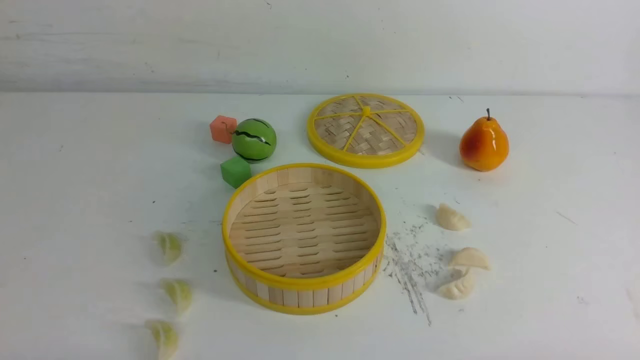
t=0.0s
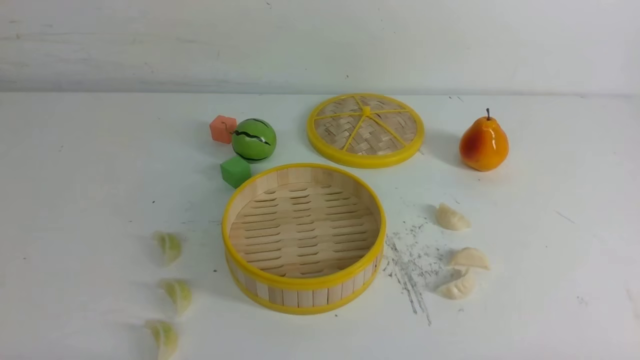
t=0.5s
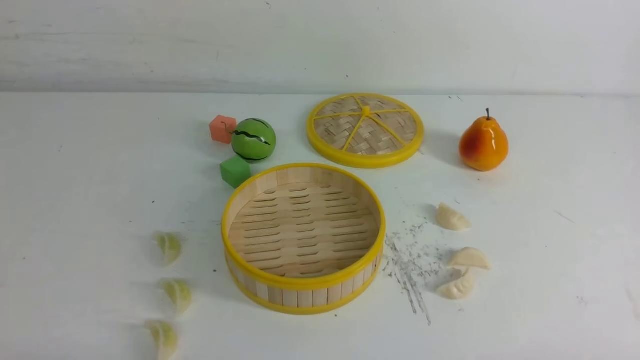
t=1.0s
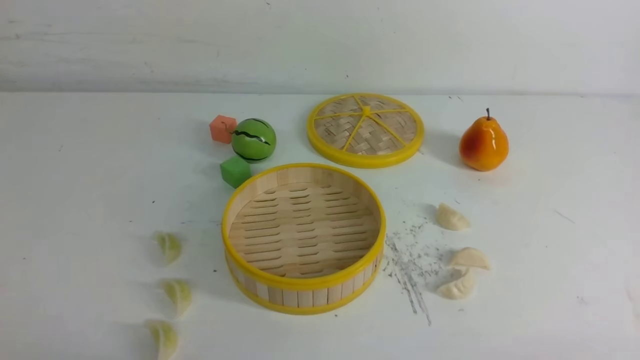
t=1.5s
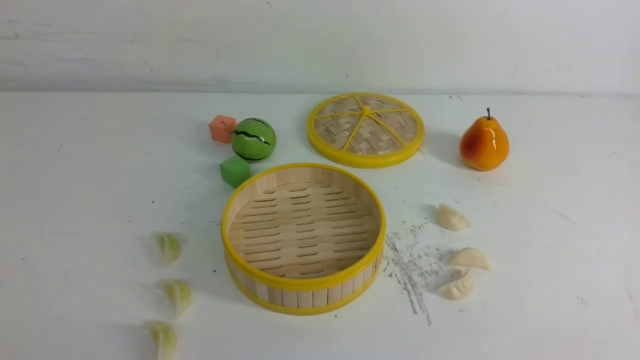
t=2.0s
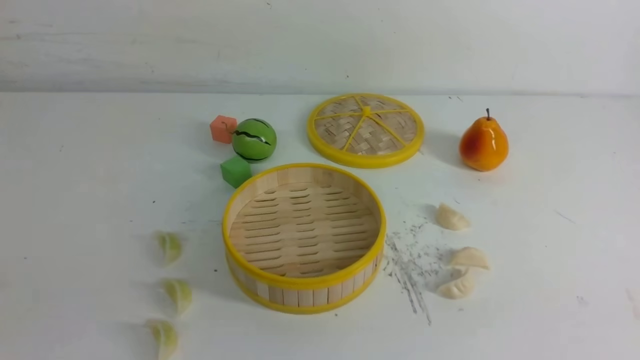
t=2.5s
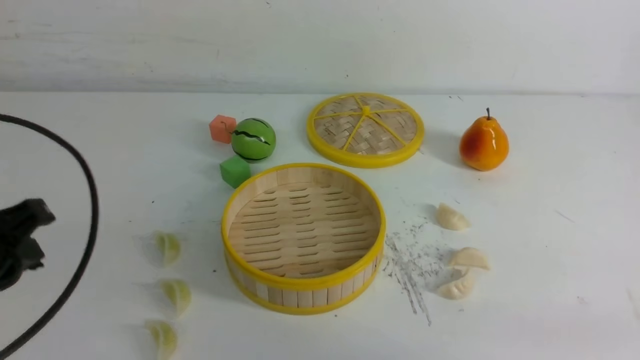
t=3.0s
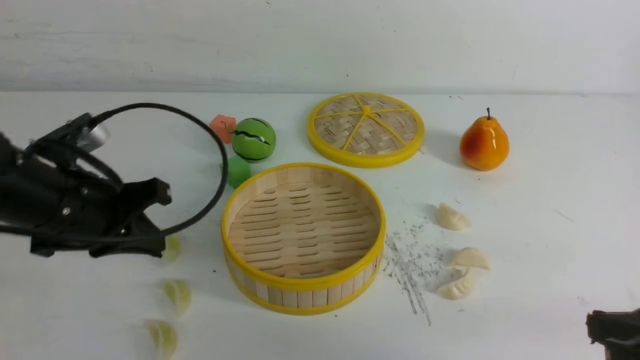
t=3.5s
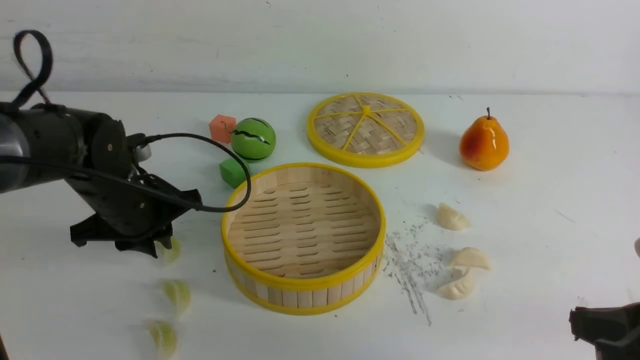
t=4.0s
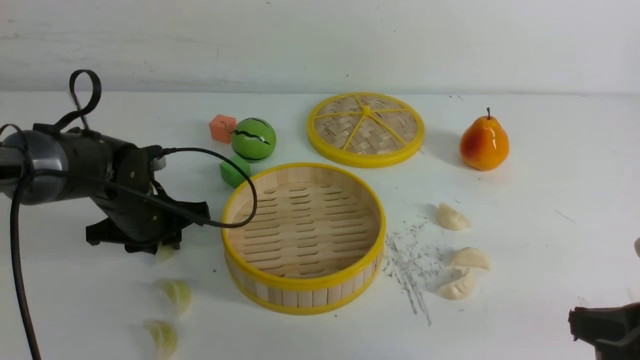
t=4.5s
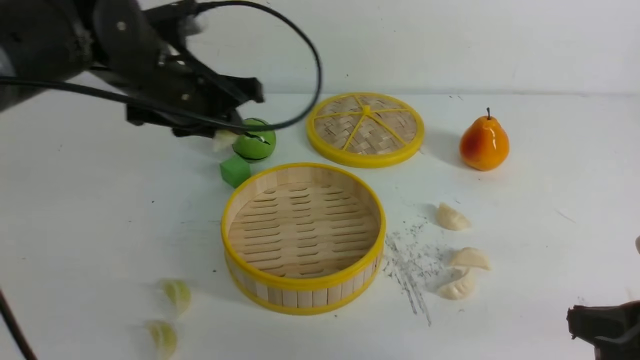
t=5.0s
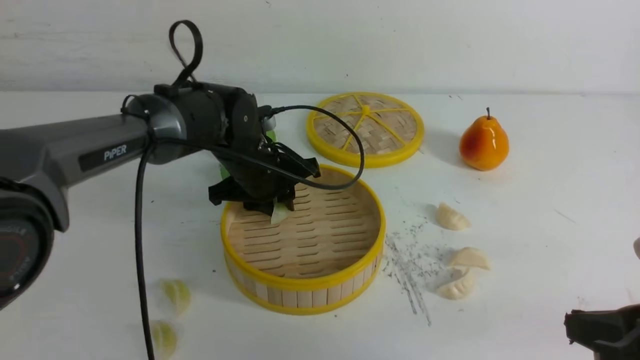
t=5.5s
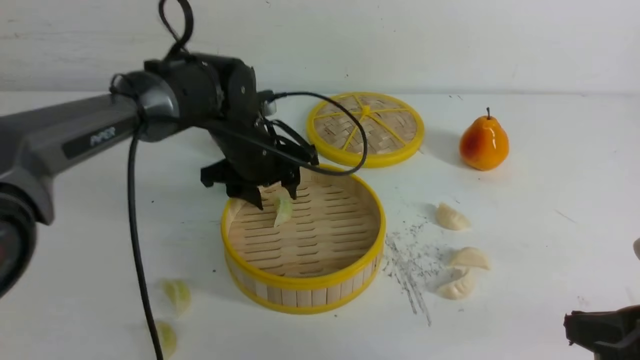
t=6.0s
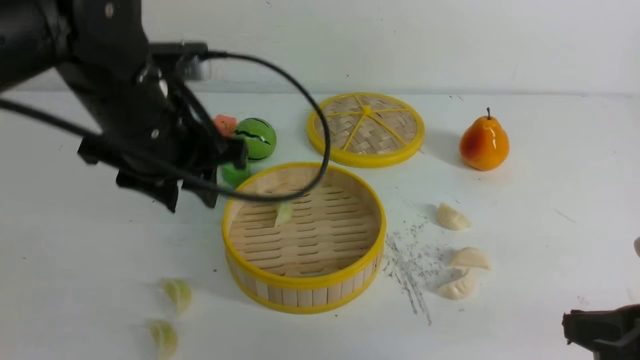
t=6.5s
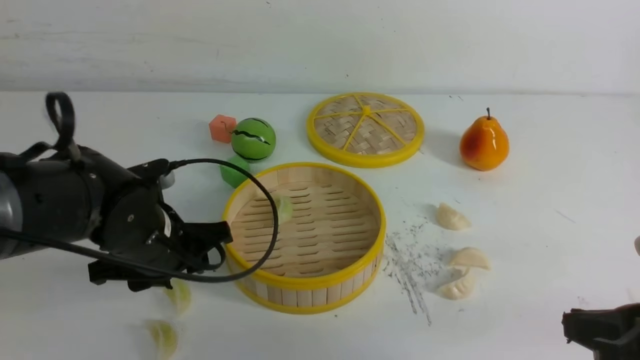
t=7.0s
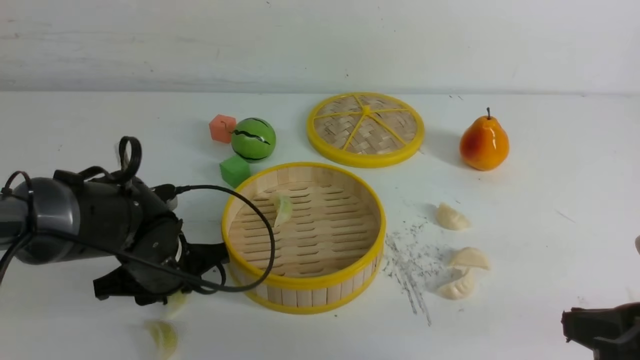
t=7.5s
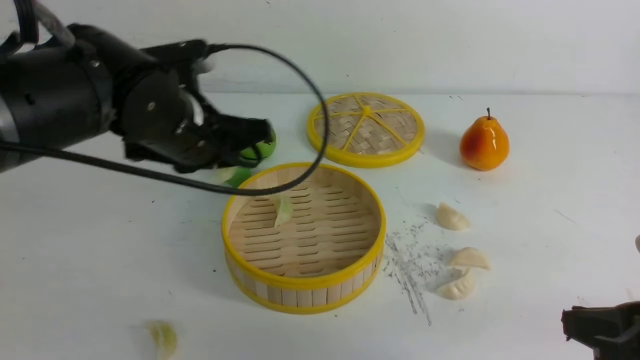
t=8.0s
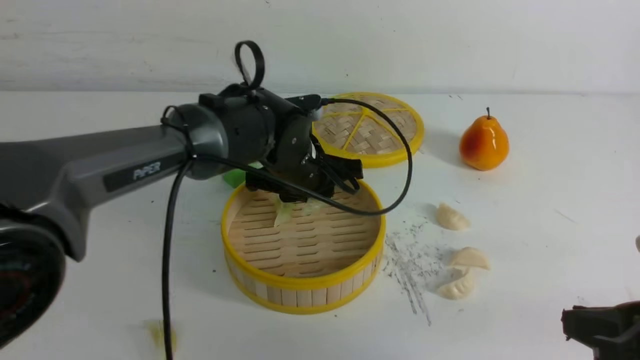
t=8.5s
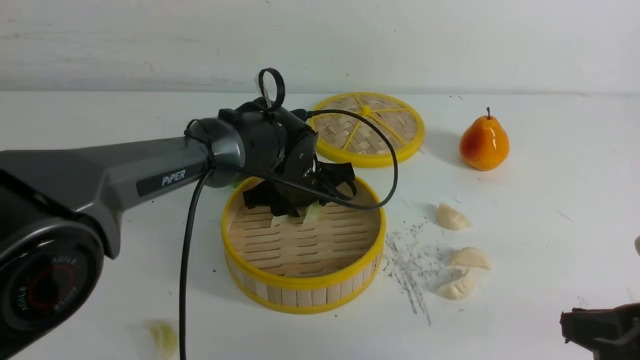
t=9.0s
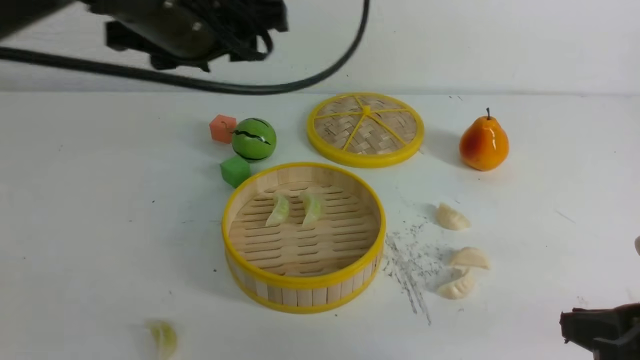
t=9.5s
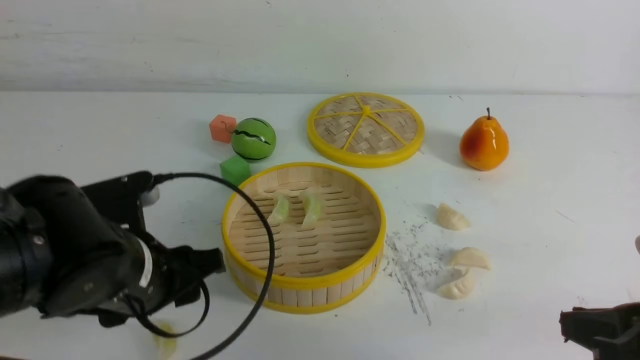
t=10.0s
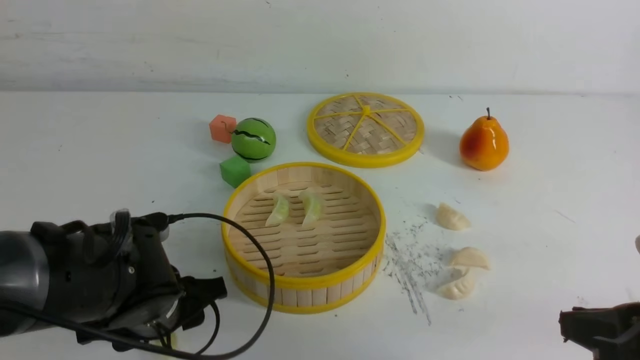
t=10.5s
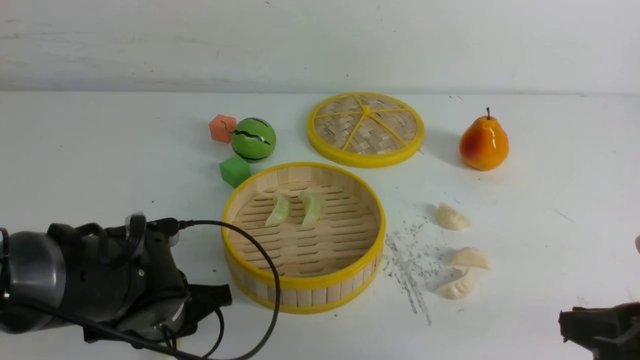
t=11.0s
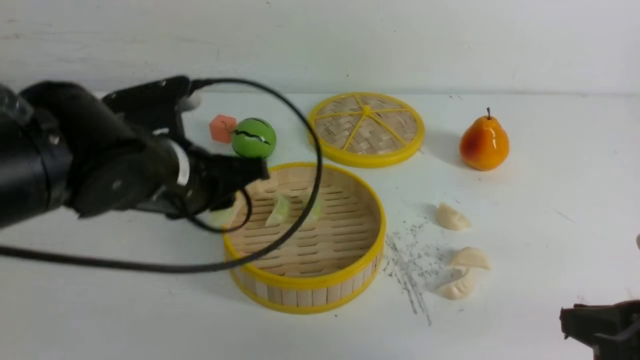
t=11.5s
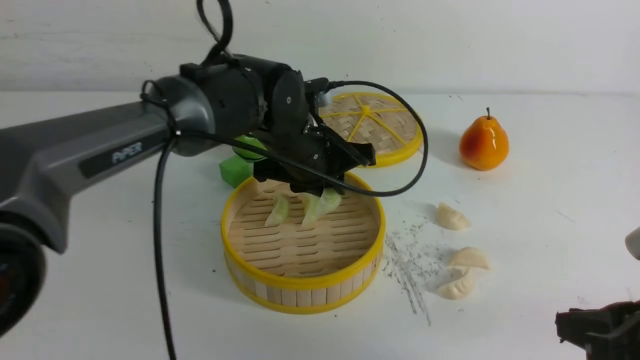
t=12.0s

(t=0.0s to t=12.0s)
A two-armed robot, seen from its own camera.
Task of the whole recording: put the dumplings into the steamer on the white table.
Step, t=0.0s - t=4.5s: use the left arm to grab a dumpling.
Step, t=5.0s - t=5.5s: use the left arm to put the dumpling into the steamer.
Step, t=6.0s - t=7.5s: use the left arm to grab a dumpling.
Step, t=8.0s - t=9.0s: use the left arm to put the dumpling into the steamer.
Step, t=9.5s - t=11.0s: use the left arm to grab a dumpling.
t=2.0s - t=4.0s: The right gripper heads forward, covering about 10 cm. The left gripper heads forward, covering roughly 30 cm, and opens its fingers.
t=4.0s - t=6.0s: The left gripper moves to the right and upward, about 15 cm, and opens its fingers.
t=6.0s - t=8.0s: The left gripper swings up and down, about 15 cm each way, with 2 reversals, and closes its fingers.
t=8.0s - t=10.0s: The left gripper shifts some 10 cm backward, and opens up.
t=10.0s - t=12.0s: The left gripper travels forward and to the right by about 20 cm, and closes up.

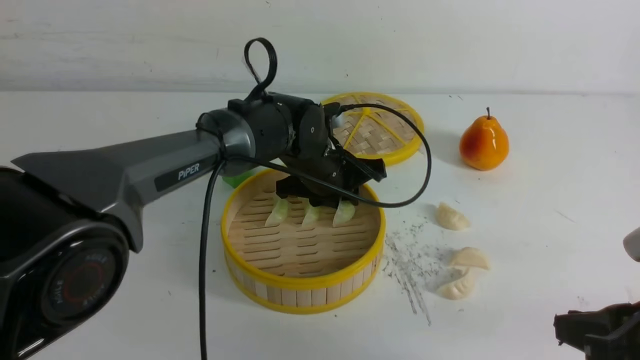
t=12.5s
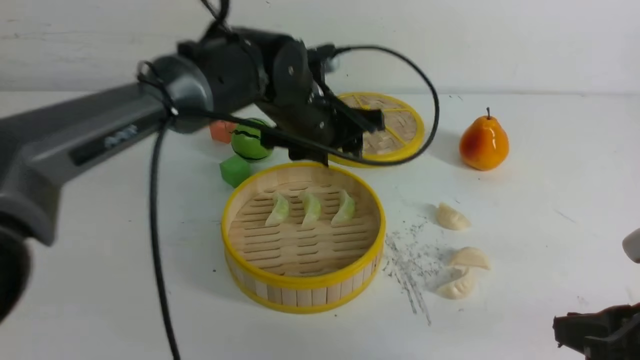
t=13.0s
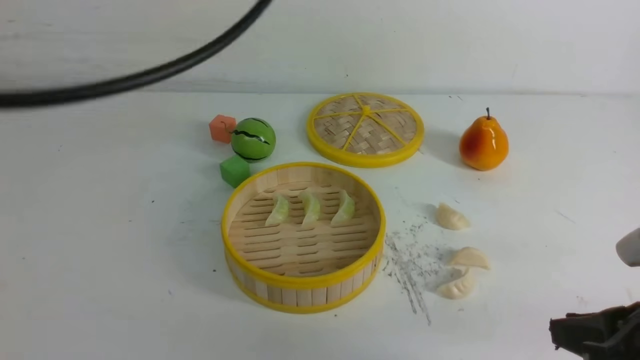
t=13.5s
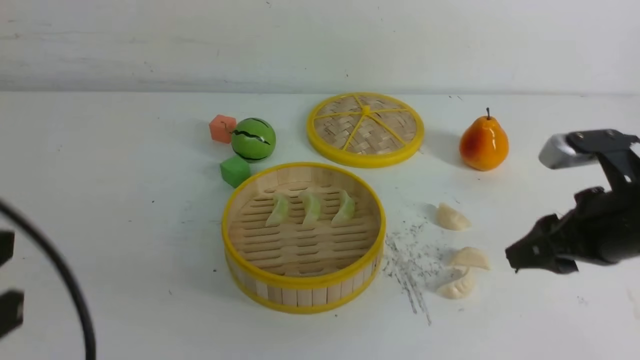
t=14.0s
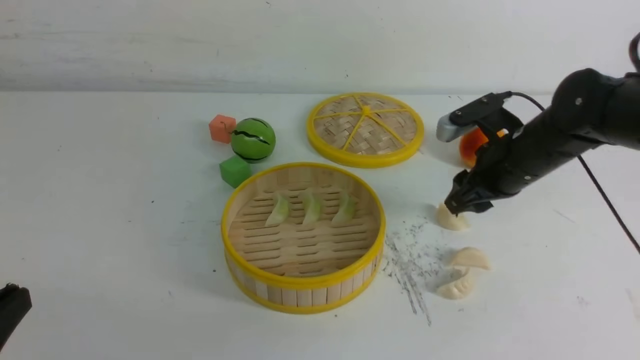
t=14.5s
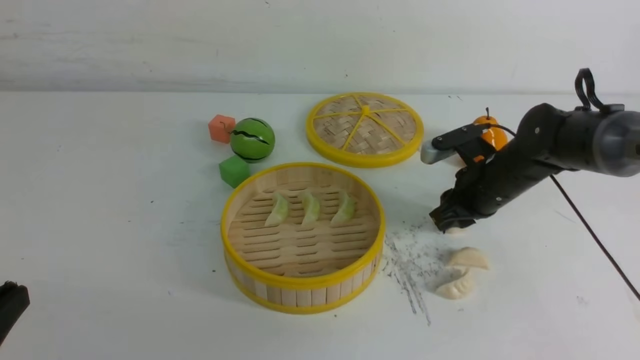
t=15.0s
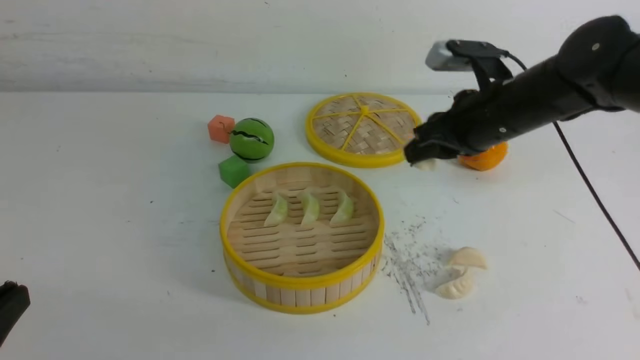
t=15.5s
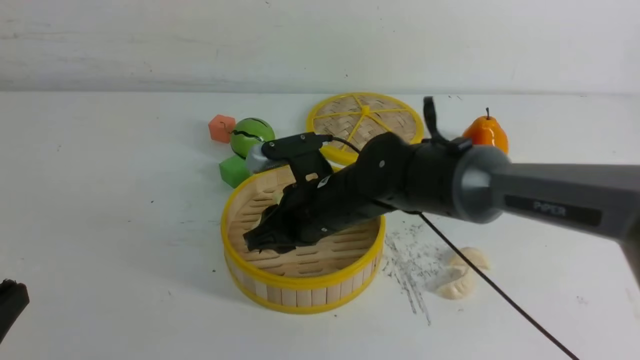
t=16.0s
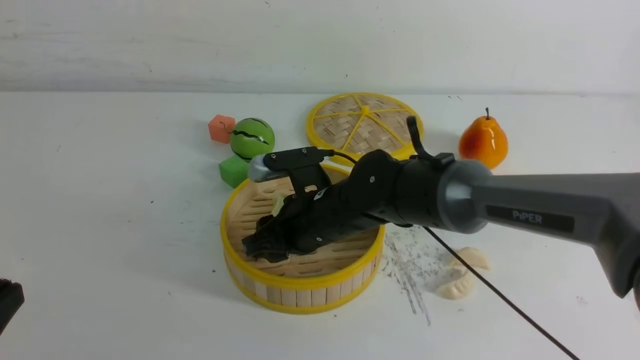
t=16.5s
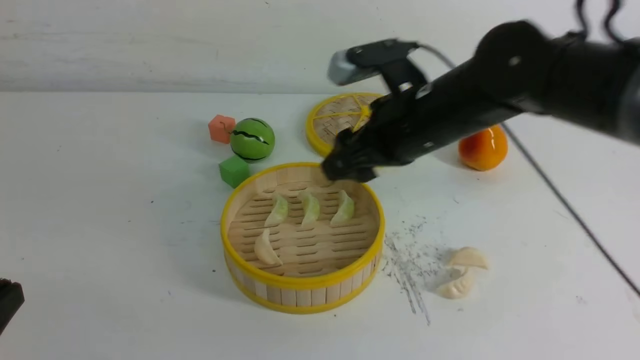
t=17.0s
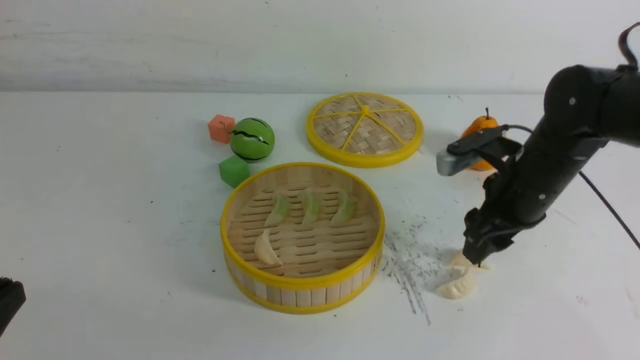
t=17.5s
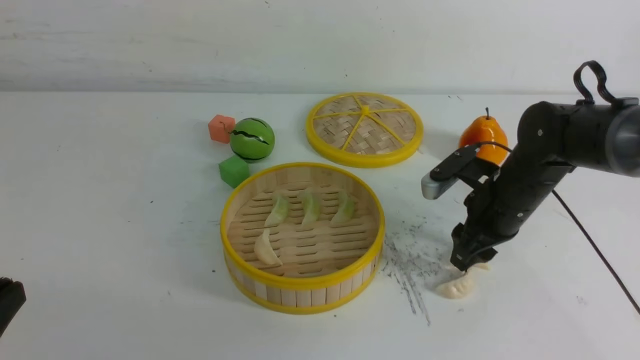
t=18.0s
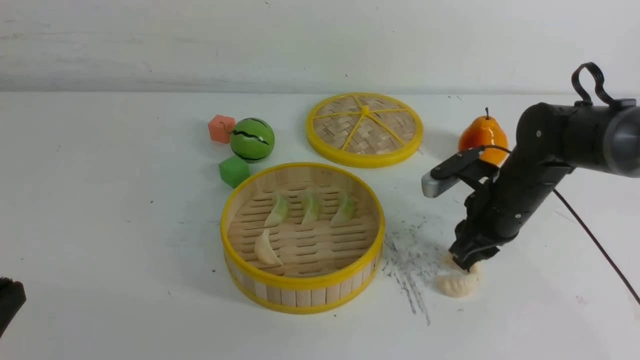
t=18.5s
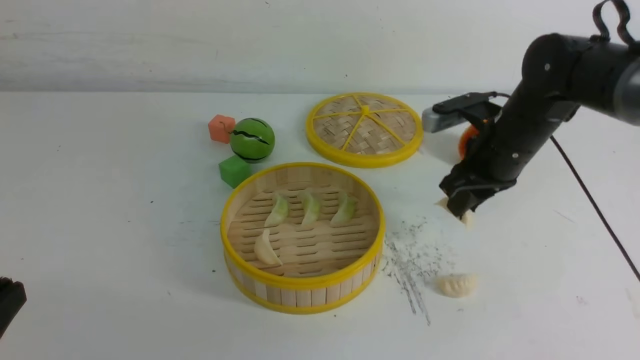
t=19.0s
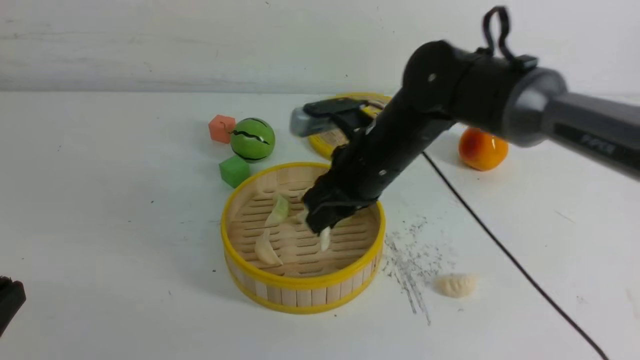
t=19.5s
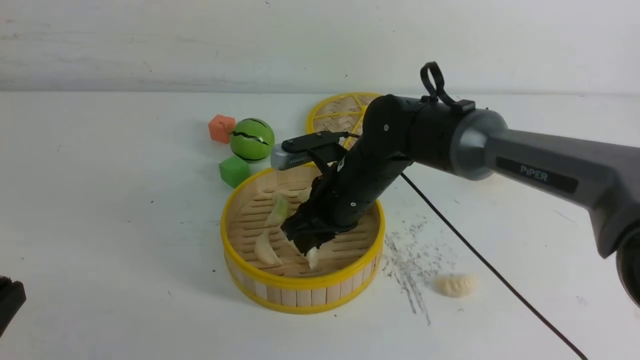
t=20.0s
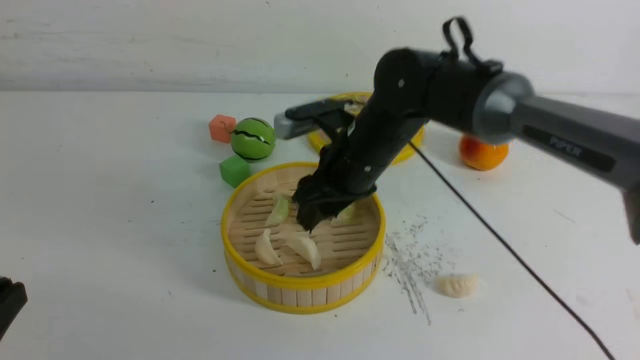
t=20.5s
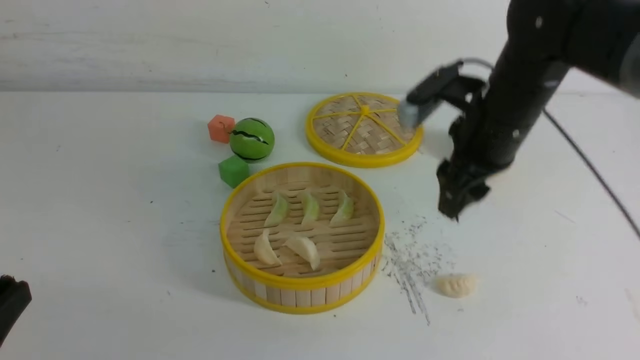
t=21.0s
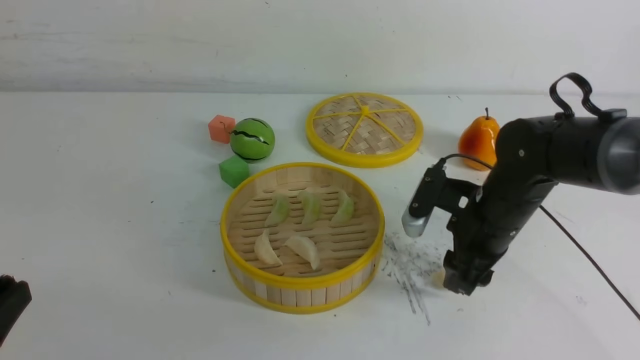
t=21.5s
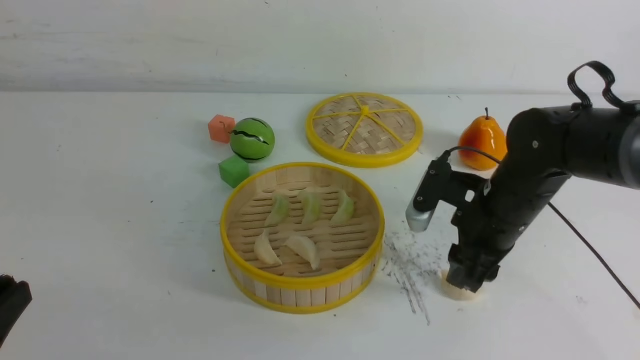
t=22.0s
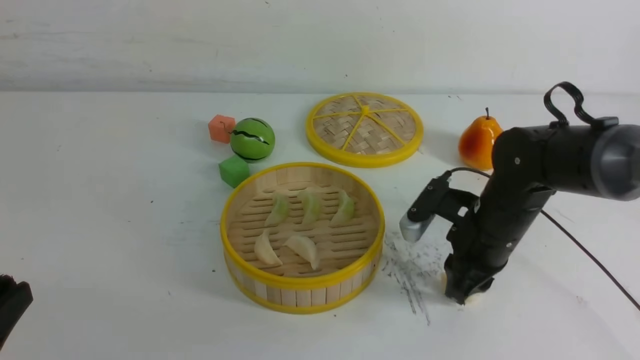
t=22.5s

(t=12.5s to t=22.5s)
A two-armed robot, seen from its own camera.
Task of the whole recording: put the dumplings into the steamer on the white table.
Step, t=13.0s - t=15.0s: use the right arm to grab a dumpling.
Step, t=15.5s - t=16.5s: use the right arm to put the dumpling into the steamer.
Step, t=17.0s - t=18.5s: use the right arm to grab a dumpling.
Step, t=19.0s - t=20.0s: use the right arm to put the dumpling into the steamer.
t=12.5s - t=14.5s: The left gripper shifts some 40 cm backward and to the left, and closes its fingers; the right gripper travels forward by roughly 25 cm, and opens its fingers.
t=14.5s - t=16.5s: The right gripper travels to the left by approximately 20 cm, and closes, then opens again.
t=16.5s - t=18.5s: The right gripper travels to the right by some 20 cm.
t=18.5s - t=20.5s: The right gripper shifts roughly 20 cm to the left and upward, and opens its fingers.
t=20.5s - t=22.5s: The right gripper moves to the right and downward, about 15 cm, and closes up.
